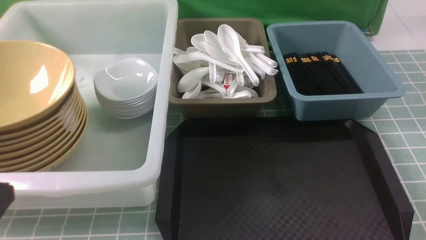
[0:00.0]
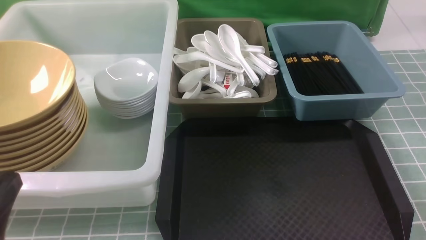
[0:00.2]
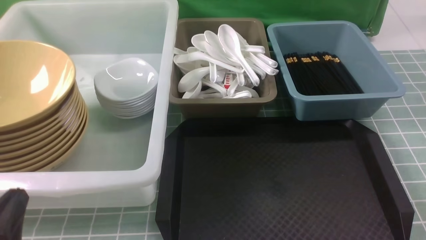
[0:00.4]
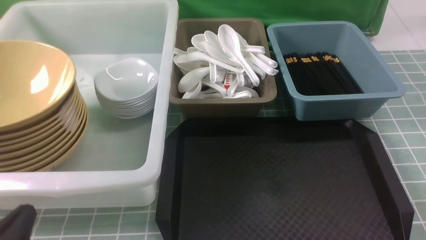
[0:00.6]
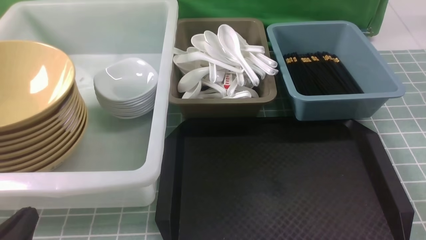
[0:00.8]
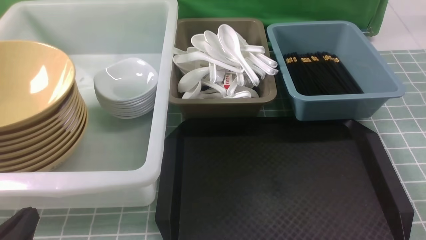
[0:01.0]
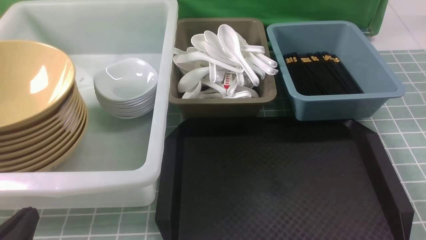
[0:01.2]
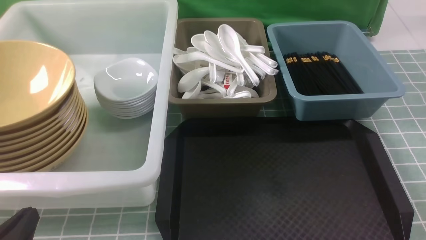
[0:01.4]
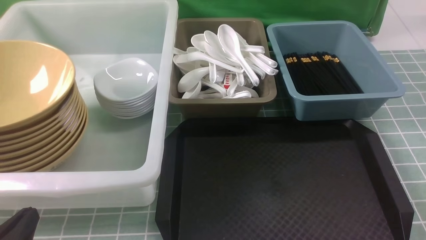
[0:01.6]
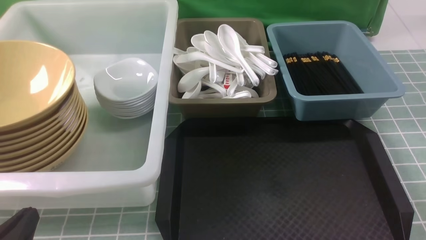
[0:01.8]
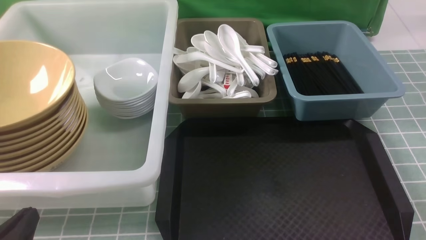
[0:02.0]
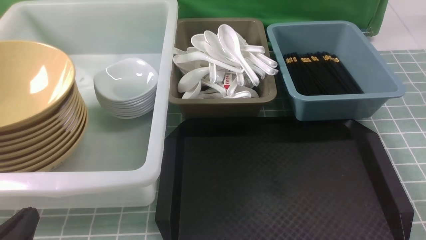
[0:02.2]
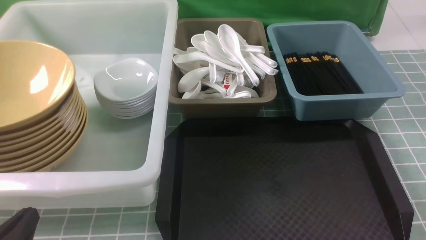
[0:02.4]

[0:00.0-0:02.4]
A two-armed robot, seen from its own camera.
Task of the whole recording: on blue table put chopsticks spoon bowls plates into blue grey white boxes.
0:00.0 to 0:01.2: The left gripper travels downward by roughly 10 cm.
0:01.2 to 0:02.4: Neither gripper changes place.

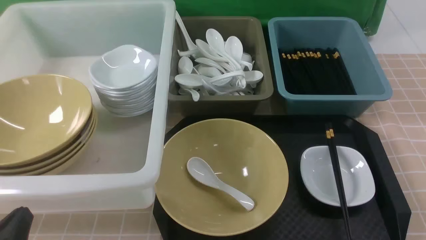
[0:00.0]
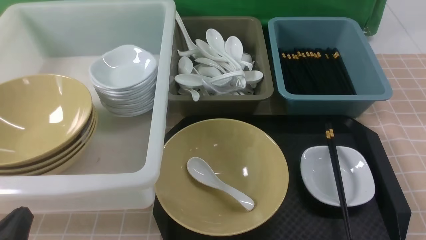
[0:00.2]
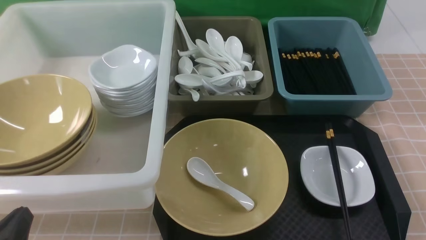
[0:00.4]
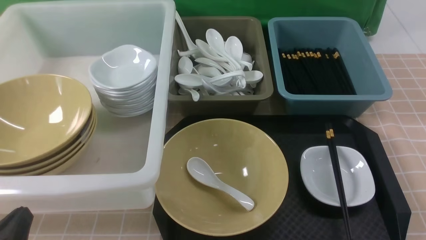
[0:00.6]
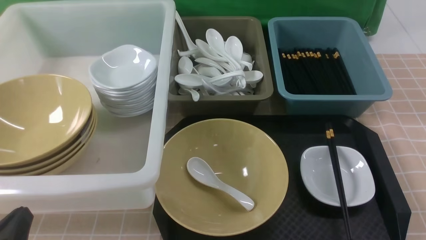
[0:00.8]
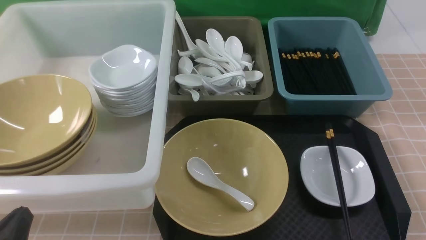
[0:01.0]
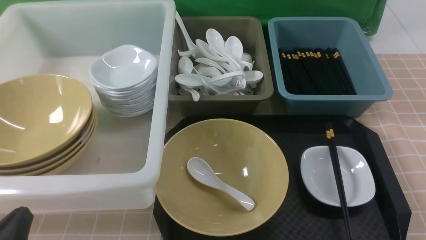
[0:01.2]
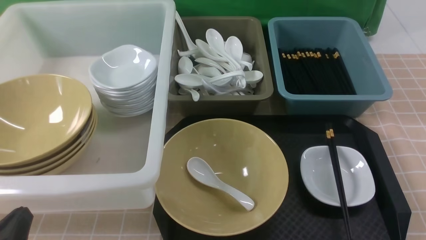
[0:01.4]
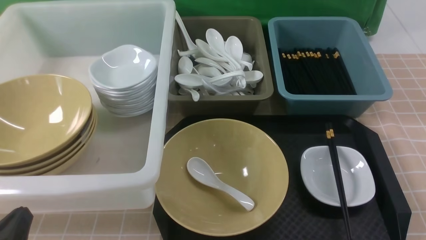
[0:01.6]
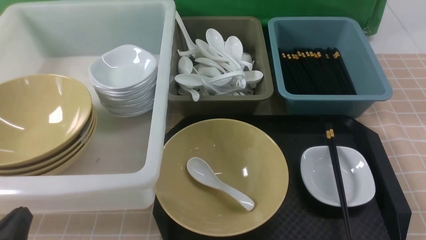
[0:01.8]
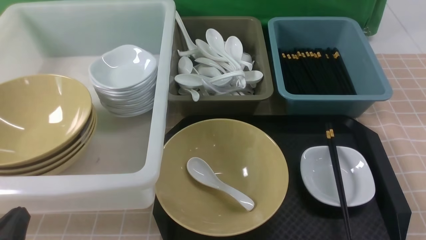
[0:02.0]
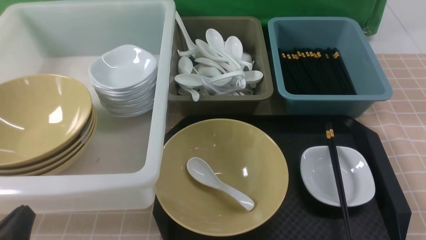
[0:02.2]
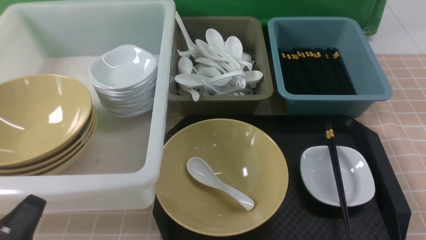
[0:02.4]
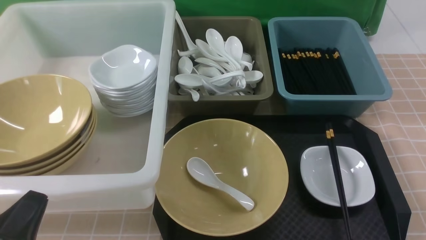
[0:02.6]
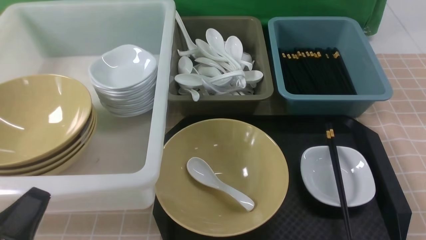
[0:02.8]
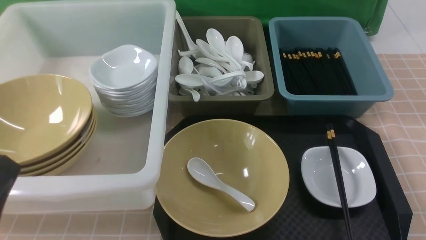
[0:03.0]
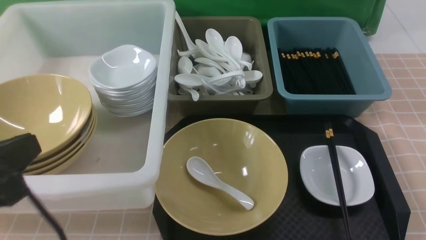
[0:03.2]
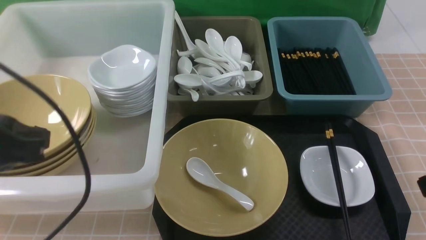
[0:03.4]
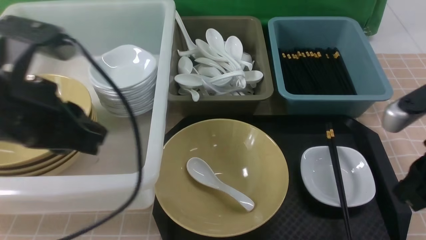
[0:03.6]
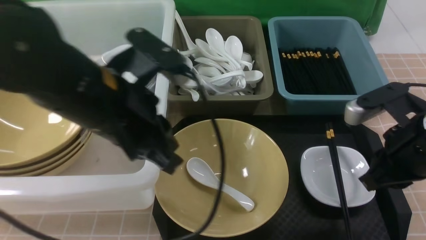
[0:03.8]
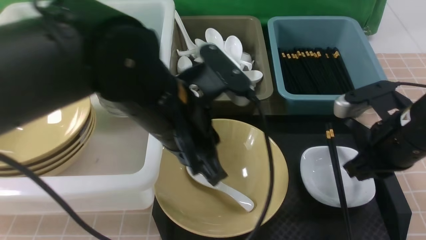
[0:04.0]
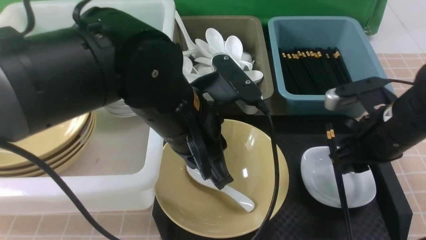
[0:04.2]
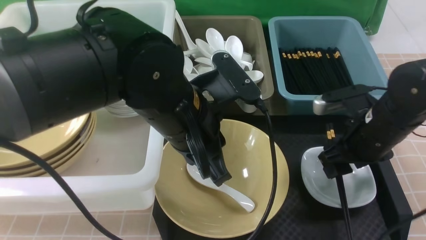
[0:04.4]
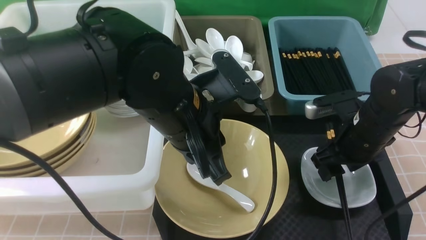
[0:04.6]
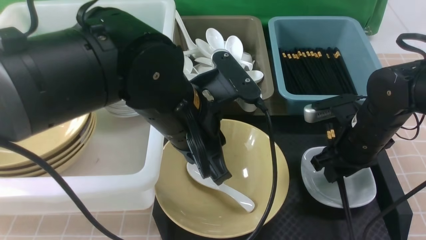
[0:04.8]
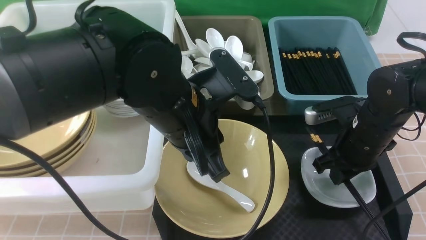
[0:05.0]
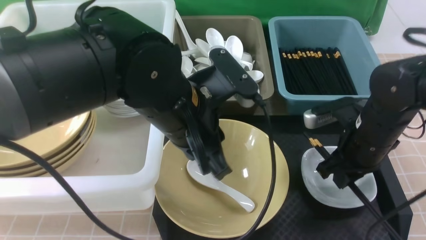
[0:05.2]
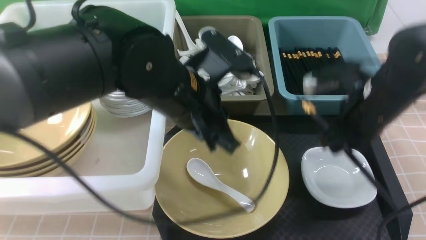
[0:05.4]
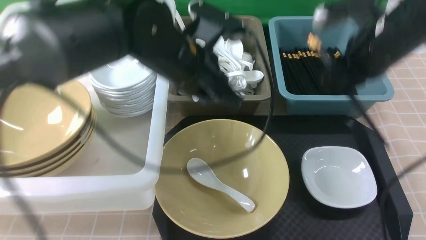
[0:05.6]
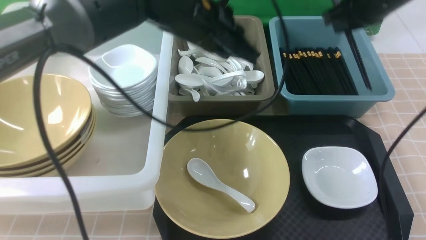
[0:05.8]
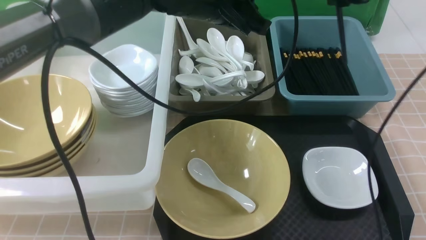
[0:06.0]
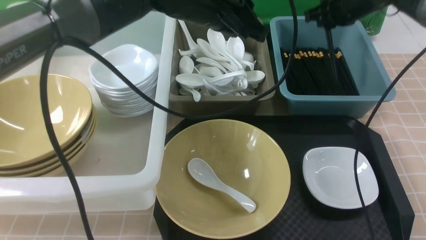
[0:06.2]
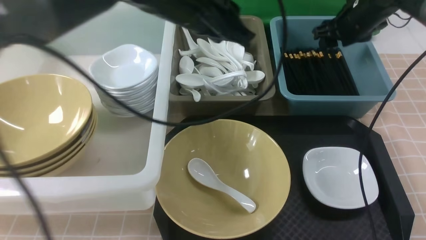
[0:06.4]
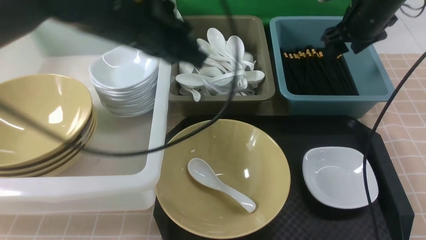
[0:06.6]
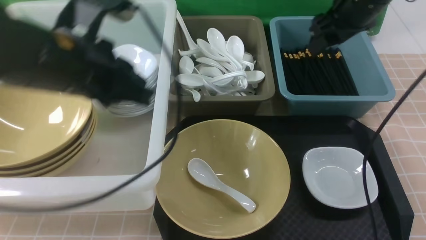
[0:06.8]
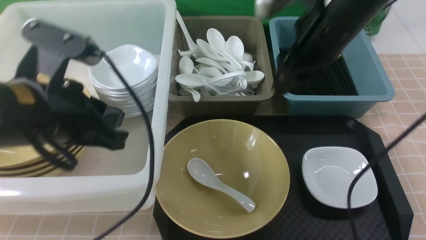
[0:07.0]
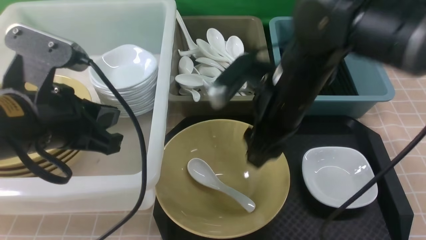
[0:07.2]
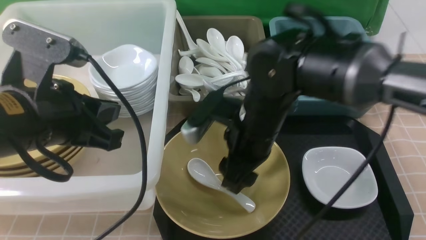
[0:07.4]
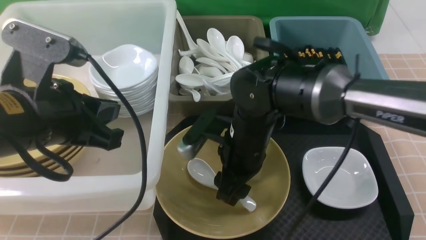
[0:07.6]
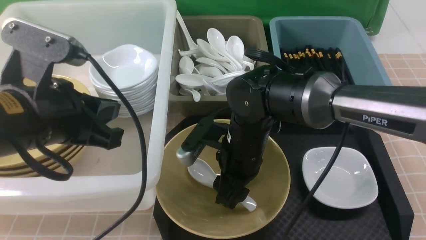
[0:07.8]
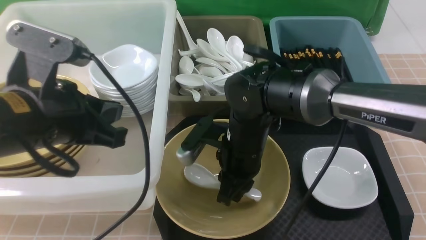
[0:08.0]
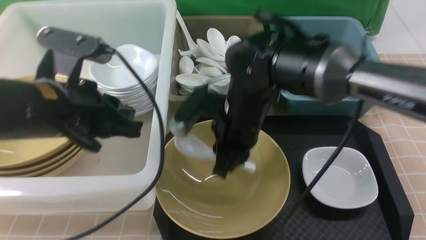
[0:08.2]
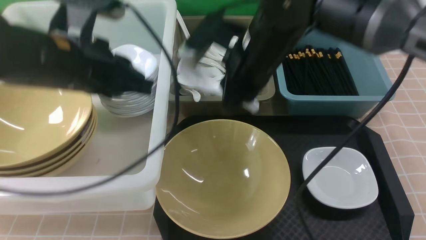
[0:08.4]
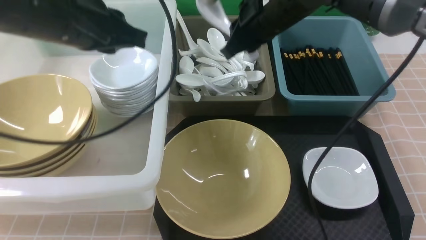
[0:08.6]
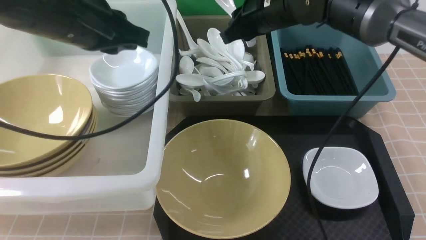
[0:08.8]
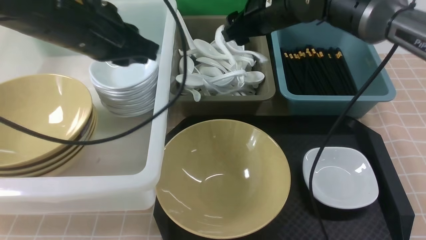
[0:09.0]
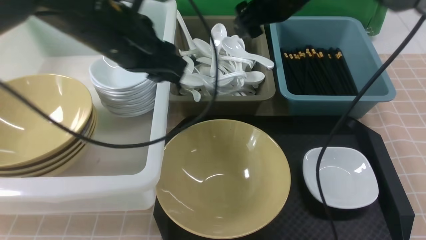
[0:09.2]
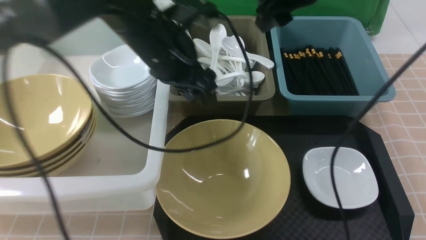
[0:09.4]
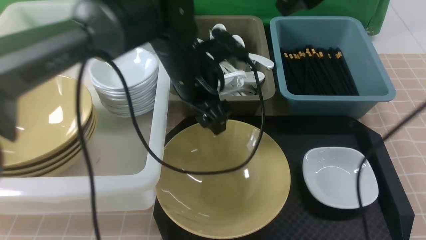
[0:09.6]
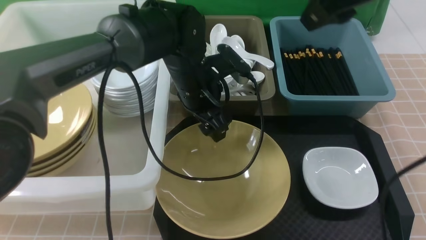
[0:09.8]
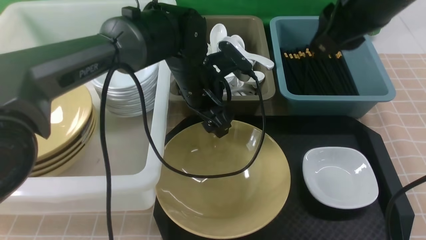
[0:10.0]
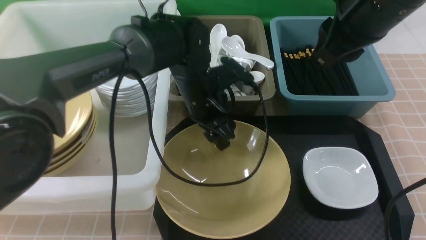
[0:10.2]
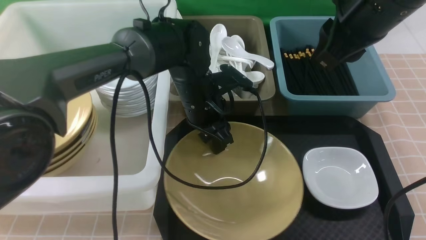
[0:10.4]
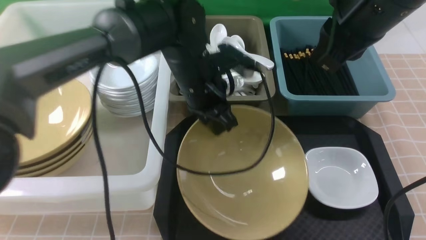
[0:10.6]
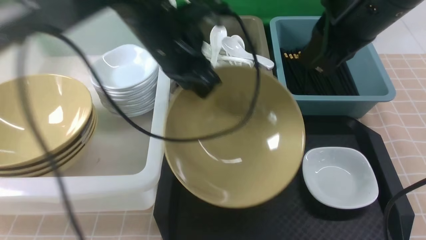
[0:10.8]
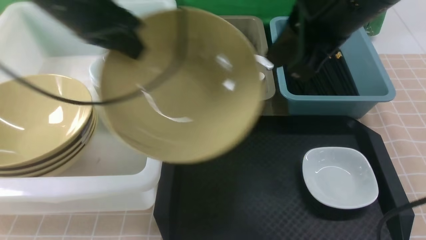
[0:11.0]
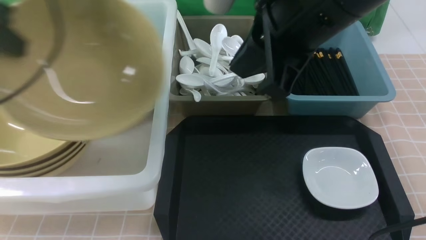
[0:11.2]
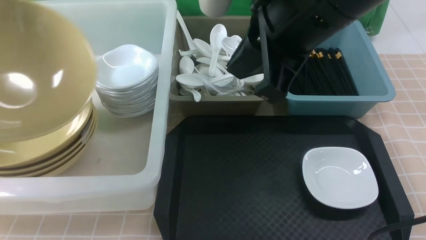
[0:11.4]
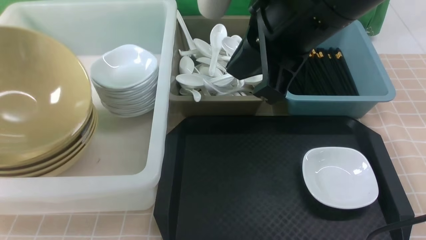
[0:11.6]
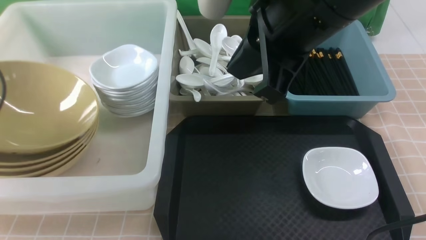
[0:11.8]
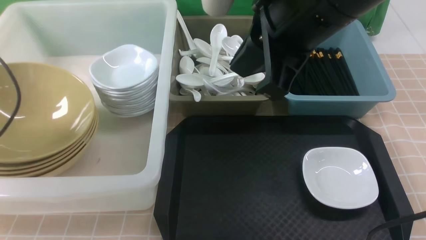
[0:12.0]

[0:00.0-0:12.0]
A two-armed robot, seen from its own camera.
Task of the whole recording: on brown table put chopsticks spoon bowls plates into blue grey white boxes.
Step, 0:00.0 to 0:05.2: use the right arm to grab the chopsticks.
Step, 0:05.4 to 0:06.6: use the right arm to put the chopsticks into the small storage box on the right.
Step, 0:06.8 to 0:08.0: use the right arm to grab the soup spoon in the middle.
Step, 0:08.2 to 0:09.0: use the right arm to put the soup spoon into the small storage box in the middle.
Step, 0:09.2 to 0:10.4: use the left arm to grab the yellow noodle bowl on the left.
0:00.0 to 0:01.6: Both grippers stay put.
0:01.6 to 0:03.0: The left gripper goes about 10 cm upward; the right gripper heads upward, covering about 5 cm.
0:03.0 to 0:04.4: The left gripper moves to the right and forward, some 25 cm. The right gripper travels forward by roughly 25 cm, and opens.
0:04.4 to 0:06.0: The left gripper shifts approximately 15 cm forward, while the right gripper travels forward and upward by some 20 cm, and closes its fingers.
0:06.0 to 0:07.6: The right gripper shifts roughly 30 cm to the left, backward and downward, and opens, while the left gripper moves backward and to the left, about 25 cm.
0:07.6 to 0:09.0: The left gripper is displaced forward by approximately 10 cm. The right gripper moves forward, upward and to the right, roughly 20 cm, and closes and opens again.
0:09.0 to 0:10.4: The right gripper shifts roughly 20 cm backward, upward and to the right, and closes up, while the left gripper is displaced downward and to the right by approximately 15 cm, and opens, then closes again.
0:10.4 to 0:12.0: The left gripper heads to the left, covering some 40 cm, and opens its fingers. Meanwhile the right gripper shifts about 10 cm to the left.

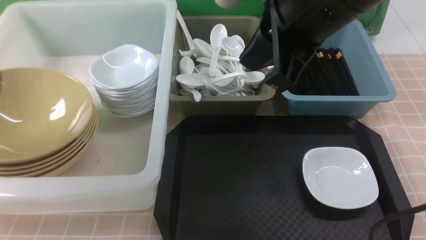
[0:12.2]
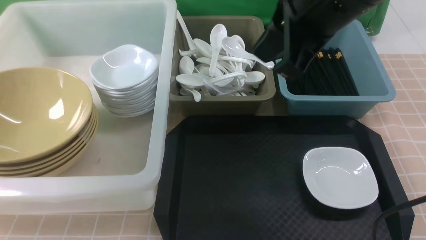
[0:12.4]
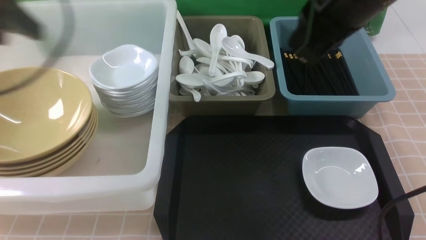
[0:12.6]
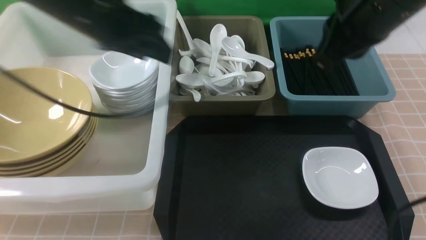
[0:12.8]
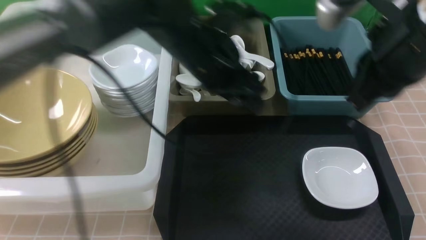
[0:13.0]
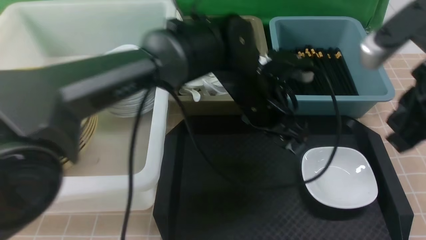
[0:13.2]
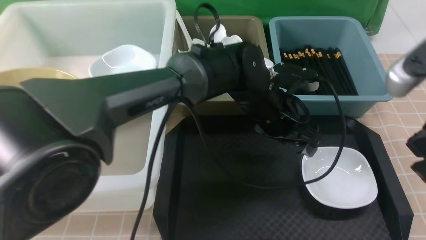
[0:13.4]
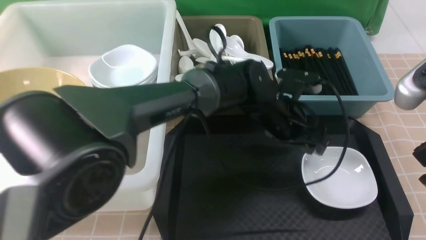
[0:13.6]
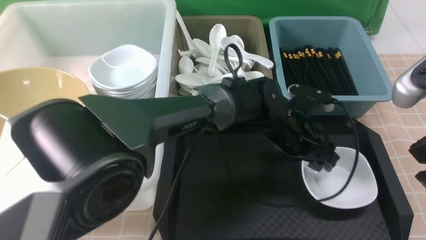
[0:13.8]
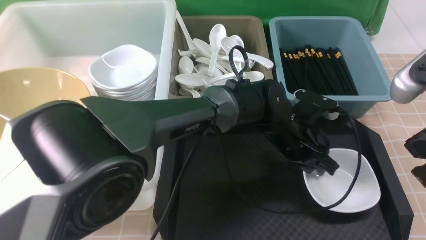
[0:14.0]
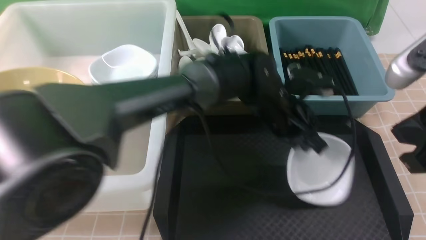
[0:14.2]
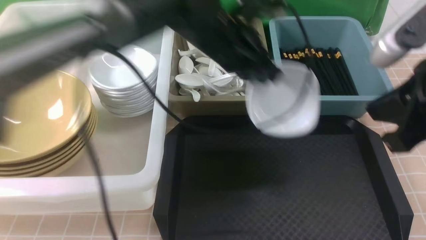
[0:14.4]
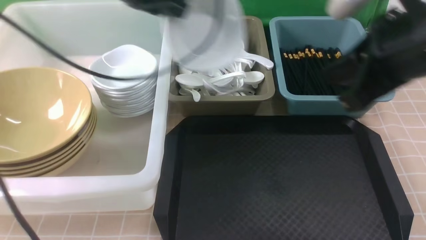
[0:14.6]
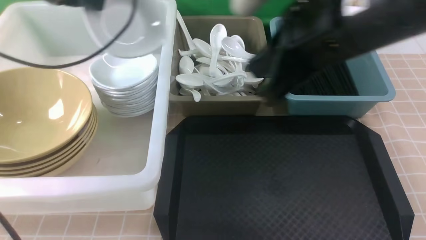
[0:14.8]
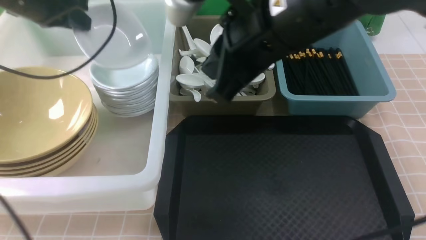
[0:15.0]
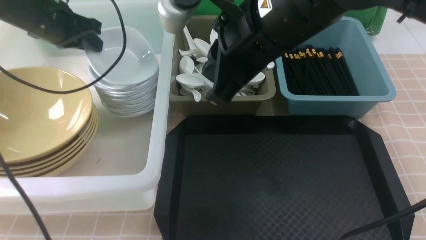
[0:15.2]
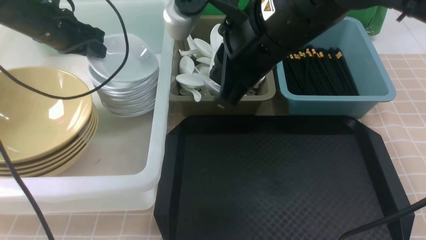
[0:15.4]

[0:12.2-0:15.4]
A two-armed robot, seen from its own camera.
Task of the whole recording: on brown table put chopsticks spoon bowls plates into blue grey white boxes.
Step, 0:12.2 to 0:14.0: use the left arm to grab the plate.
0:12.2 to 0:13.8: The right gripper moves to the right, backward and downward, about 20 cm. Meanwhile the left gripper travels to the right by roughly 50 cm.
0:13.8 to 0:15.4: The left gripper is displaced to the left by roughly 40 cm, and closes, then opens again. The right gripper heads to the left and forward, covering approximately 20 cm.
